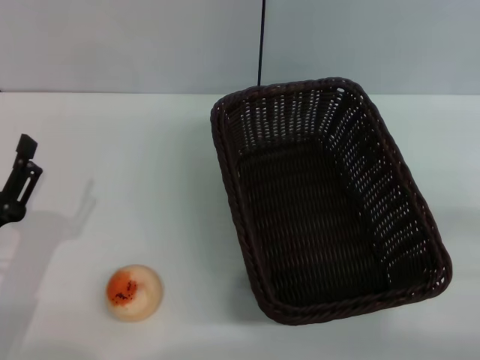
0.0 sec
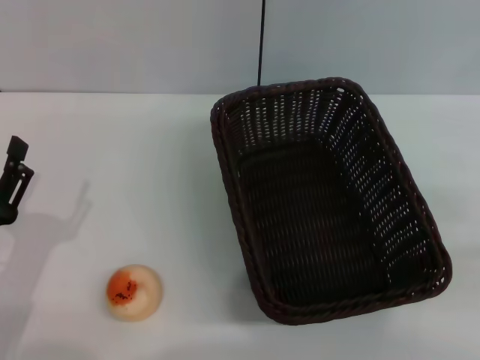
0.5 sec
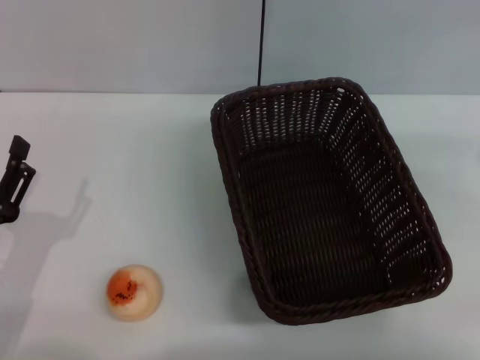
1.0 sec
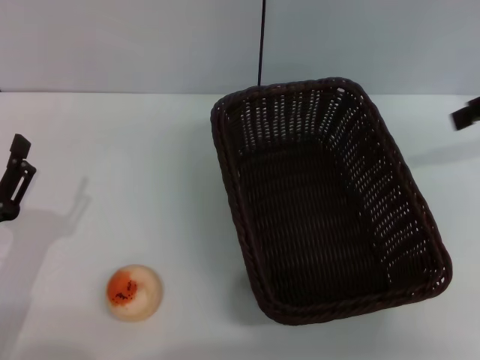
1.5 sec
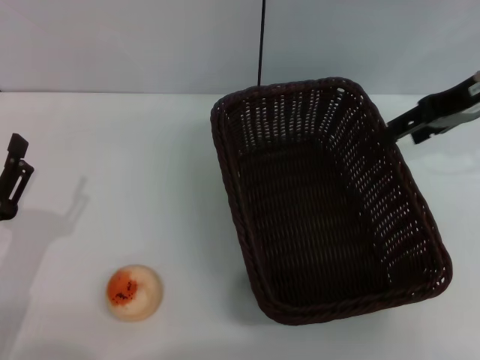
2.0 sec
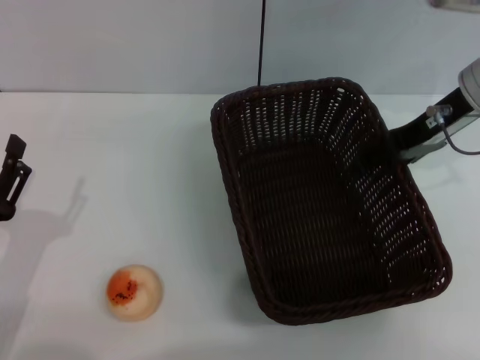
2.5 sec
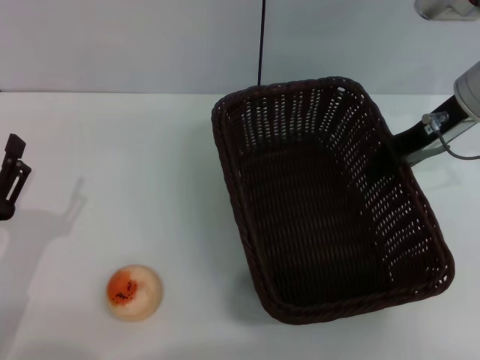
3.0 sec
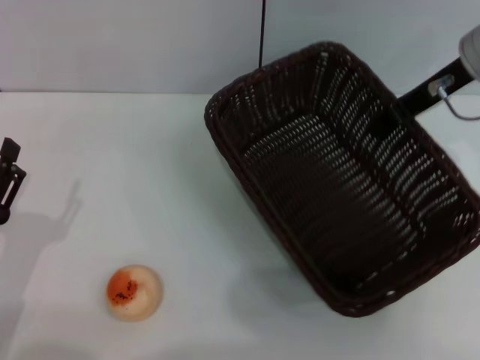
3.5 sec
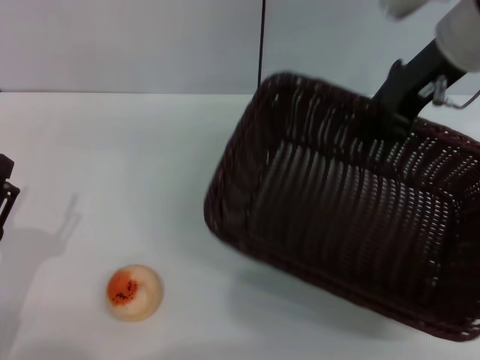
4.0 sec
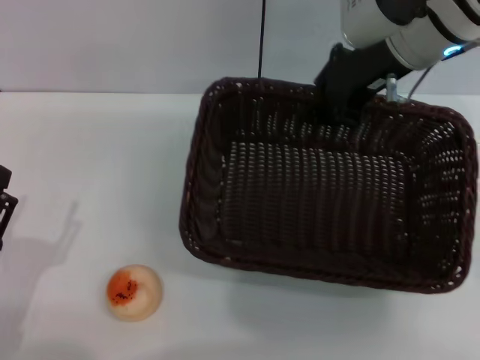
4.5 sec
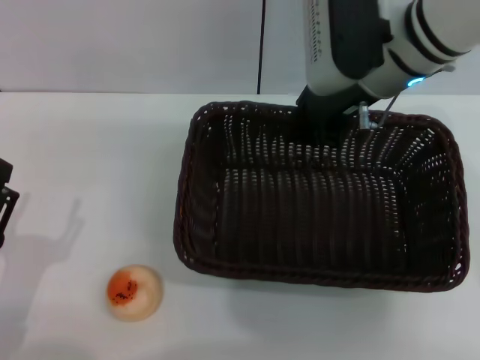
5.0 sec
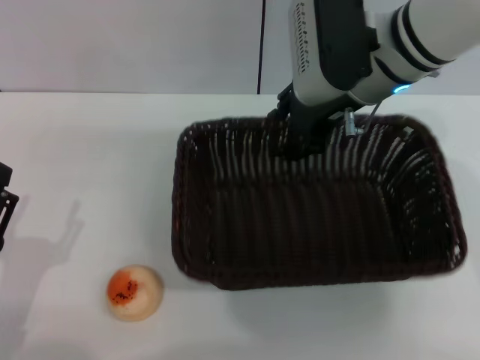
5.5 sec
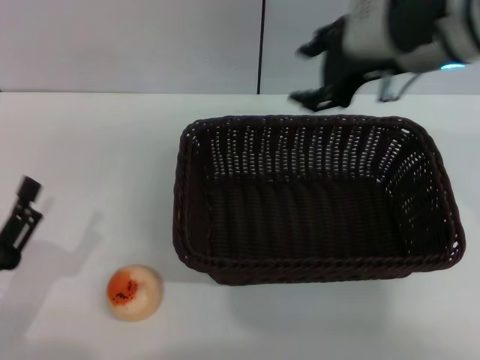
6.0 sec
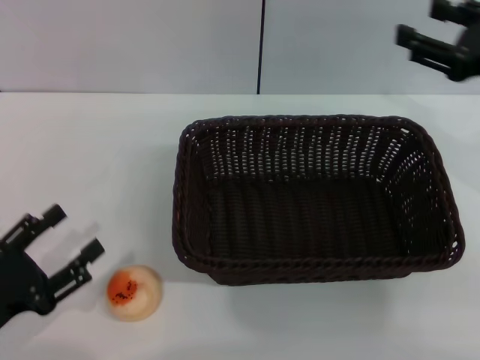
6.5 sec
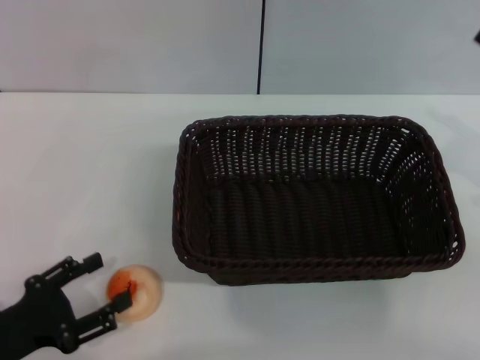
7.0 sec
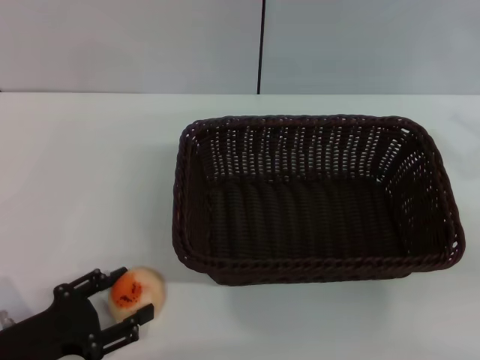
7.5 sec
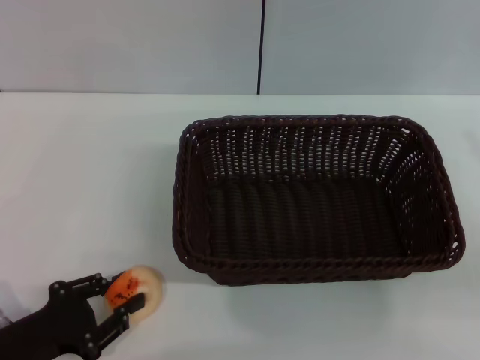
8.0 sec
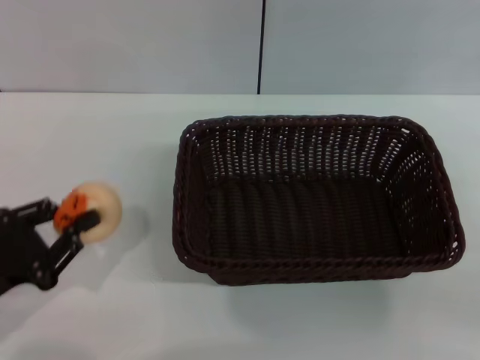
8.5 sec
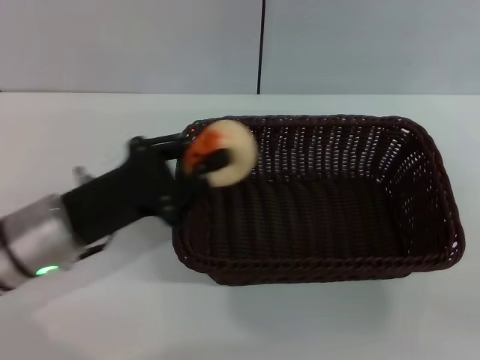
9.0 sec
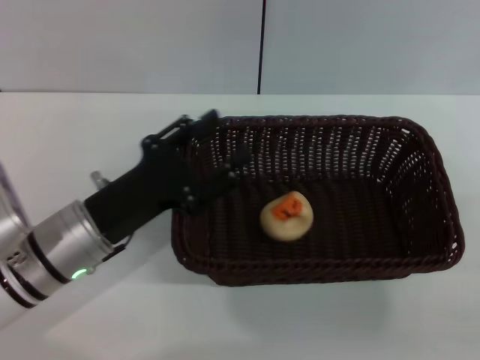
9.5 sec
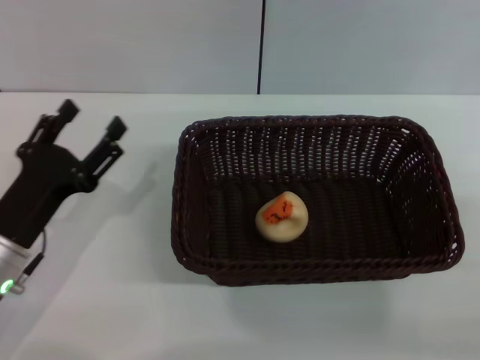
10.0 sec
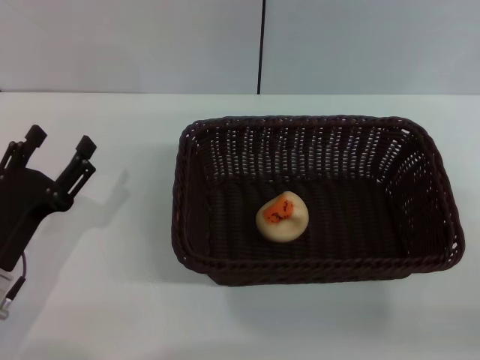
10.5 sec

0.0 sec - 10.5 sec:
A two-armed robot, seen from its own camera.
Step, 0.0 sec - 5.5 sec: Move the basket to the center of view with the right gripper.
Step, 6.0 sec - 8.0 sec: Pick up the egg yolk pastry with the left gripper.
Step, 8.5 sec - 9.5 sec: Place the egg yolk pastry into the basket with the left gripper.
0.0 sec - 2.0 sec: The right gripper heads forward, upward and to the left, covering some 30 cm.
2.0 sec - 4.0 sec: The right gripper heads to the left, covering roughly 10 cm, and closes its fingers.
4.0 sec - 6.5 sec: The right gripper heads to the right and backward, covering some 15 cm, and opens up.
6.5 sec - 8.5 sec: The left gripper closes up; the right gripper goes approximately 15 cm to the right, backward and downward.
8.5 sec - 10.5 sec: The right gripper shifts by roughly 5 cm. The left gripper opens up.

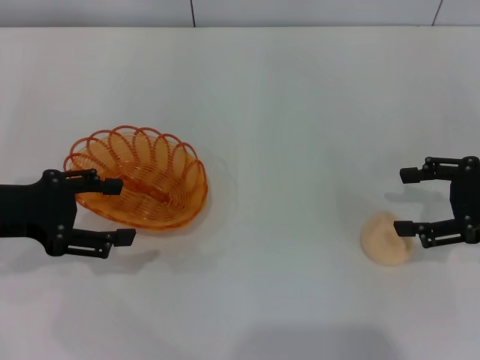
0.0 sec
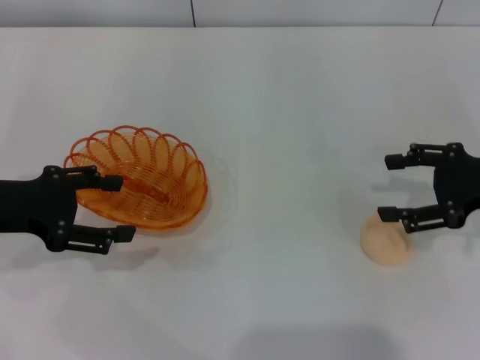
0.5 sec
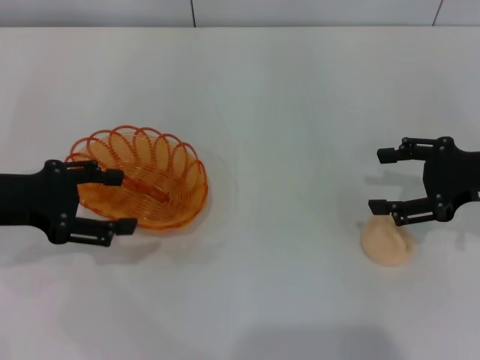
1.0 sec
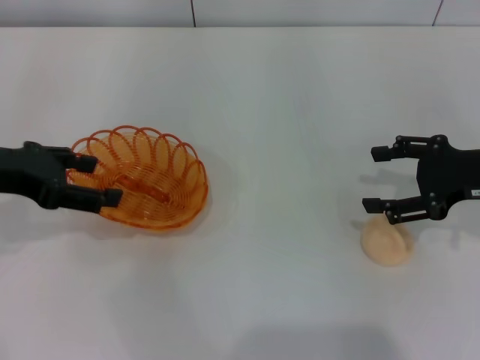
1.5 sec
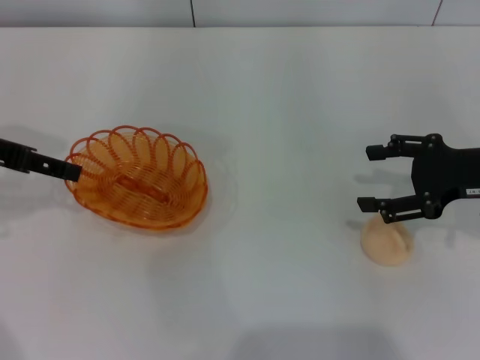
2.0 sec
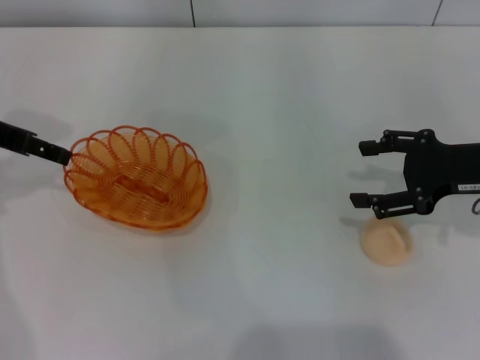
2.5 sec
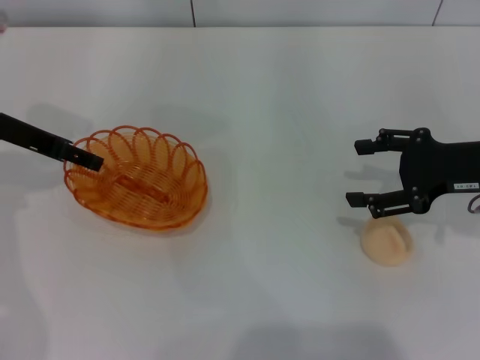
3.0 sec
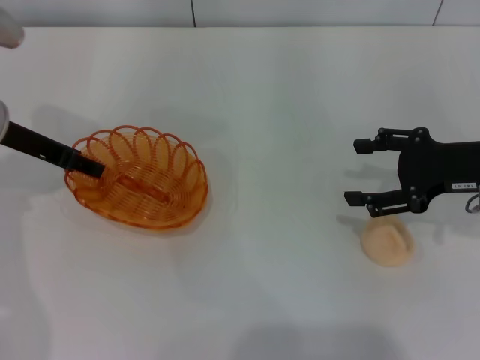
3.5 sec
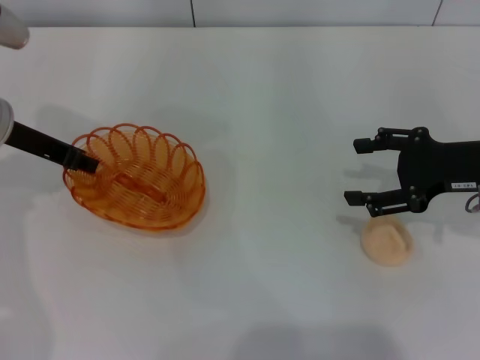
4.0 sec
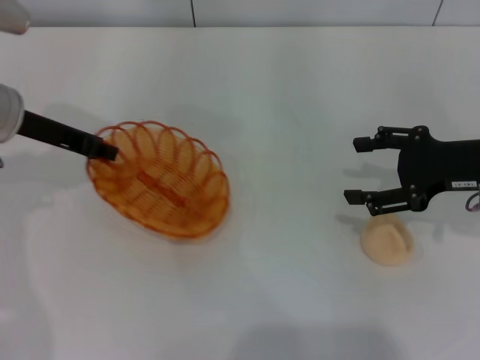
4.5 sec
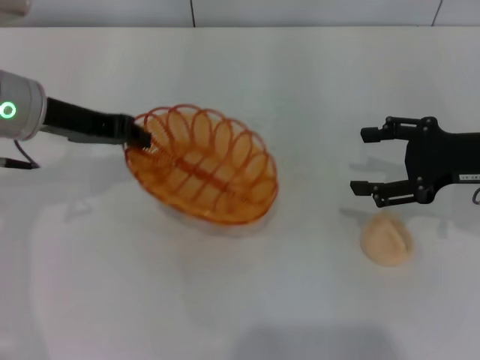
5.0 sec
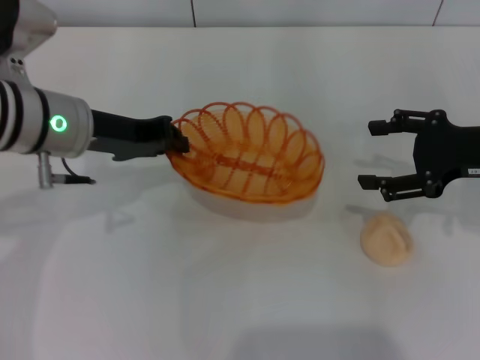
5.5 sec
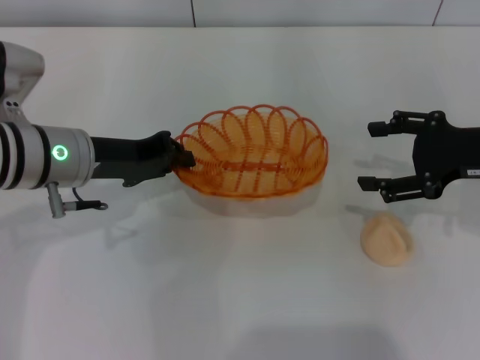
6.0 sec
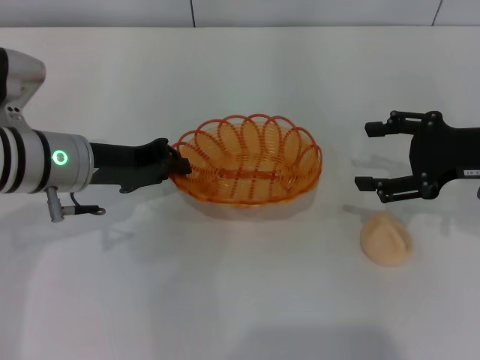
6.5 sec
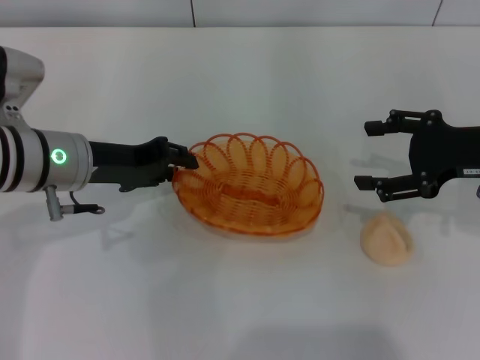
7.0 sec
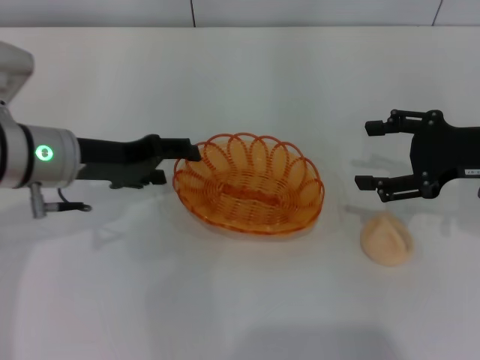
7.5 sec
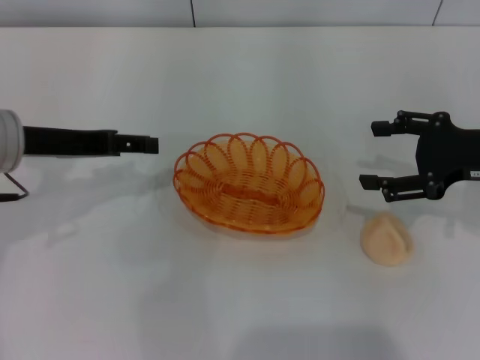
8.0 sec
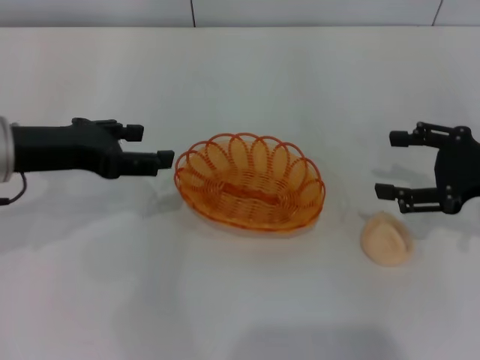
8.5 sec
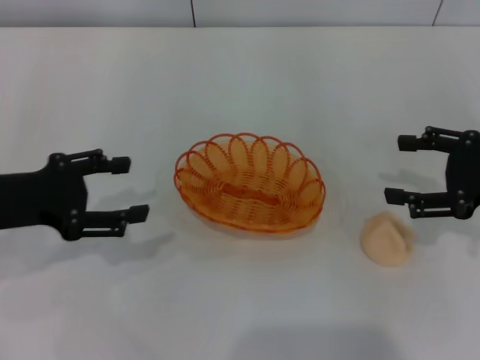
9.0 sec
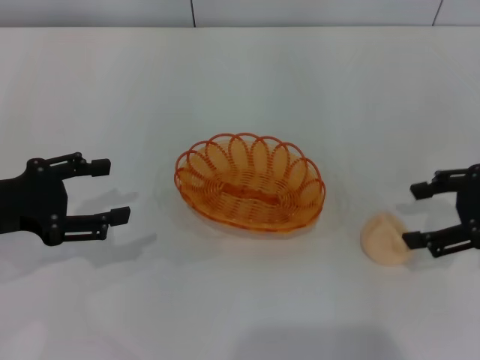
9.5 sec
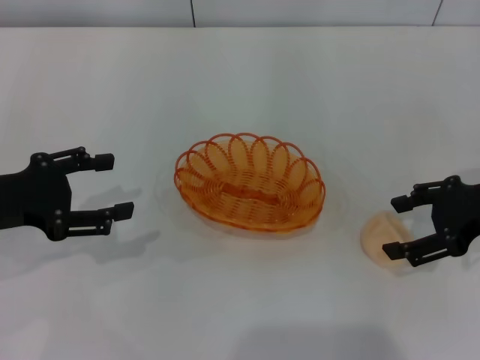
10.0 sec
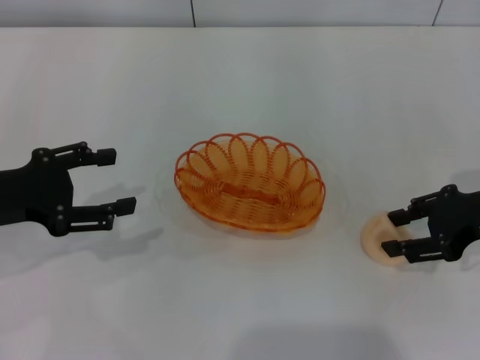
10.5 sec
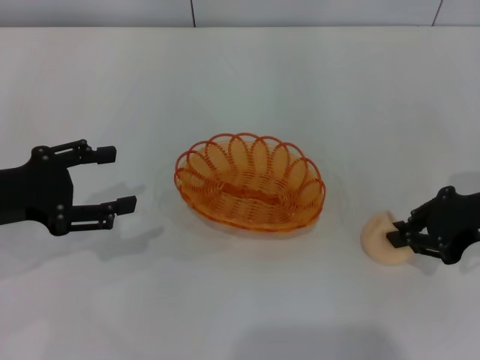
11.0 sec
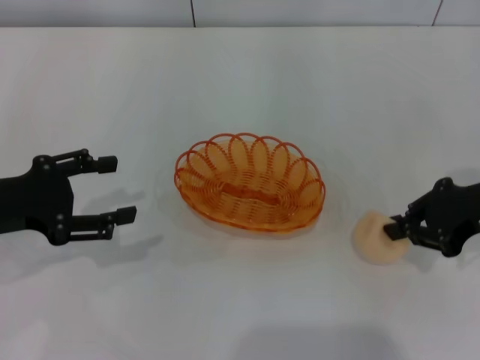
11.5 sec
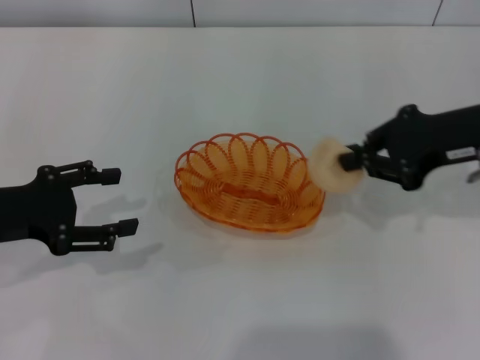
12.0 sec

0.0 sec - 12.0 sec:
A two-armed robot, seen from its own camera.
Step, 0.0 sec - 4.5 sec: Pick up the basket with the left gripper.
Step, 5.0 sec - 7.5 sec: Place the basket in the center of view with the left gripper.
Step, 8.0 sec - 11.5 sec: Pick up the egg yolk pastry with the right gripper.
0.0 sec - 2.0 sec: The left gripper moves upward, some 5 cm.
2.0 sec - 4.0 sec: The left gripper goes roughly 5 cm downward and forward, and closes up.
4.0 sec - 6.0 sec: The left gripper goes some 5 cm to the right.
6.0 sec - 8.0 sec: The left gripper ends up about 5 cm from where it was, and opens its fingers.
8.0 sec - 10.0 sec: The left gripper is displaced to the left and backward by some 10 cm.
10.0 sec - 12.0 sec: The right gripper shifts by approximately 5 cm, and closes its fingers.

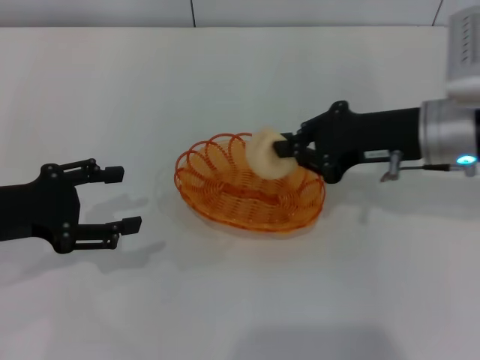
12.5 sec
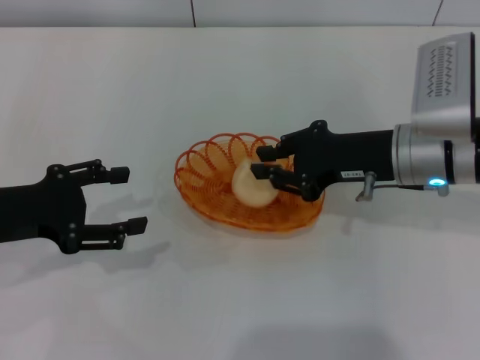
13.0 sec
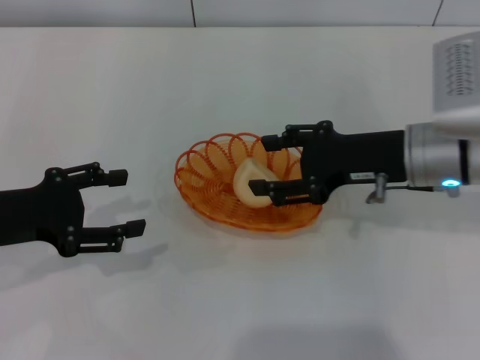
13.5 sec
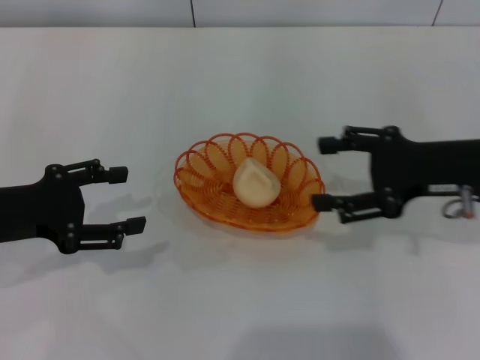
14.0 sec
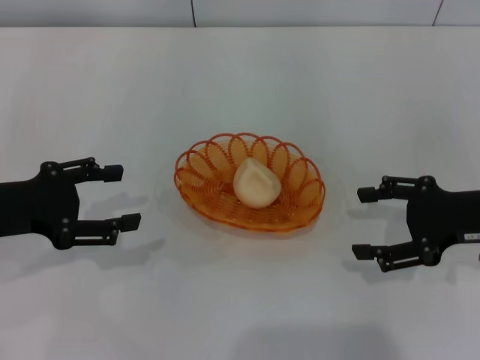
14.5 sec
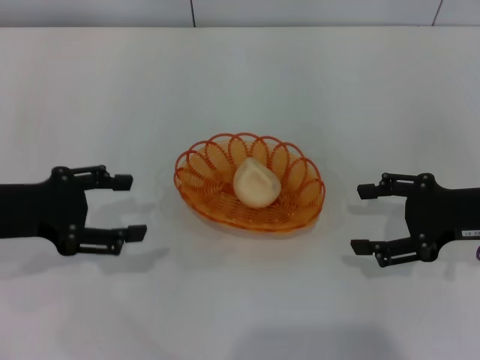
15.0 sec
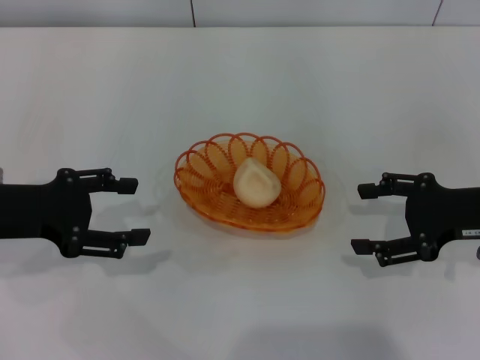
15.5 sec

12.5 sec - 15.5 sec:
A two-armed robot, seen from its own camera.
Step, 12.5 sec - 13.5 sec: Place the egg yolk pastry into the basket with the right gripper.
12.5 sec - 14.0 sec: The right gripper moves to the right, some 5 cm, and opens up.
14.0 sec - 15.5 sec: The right gripper changes place by roughly 5 cm.
